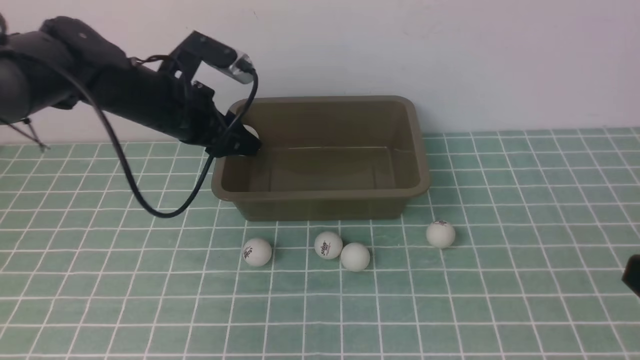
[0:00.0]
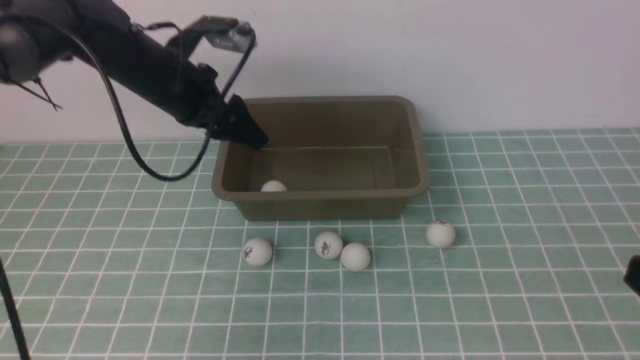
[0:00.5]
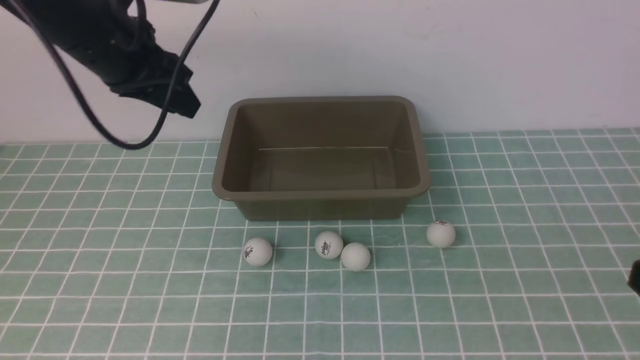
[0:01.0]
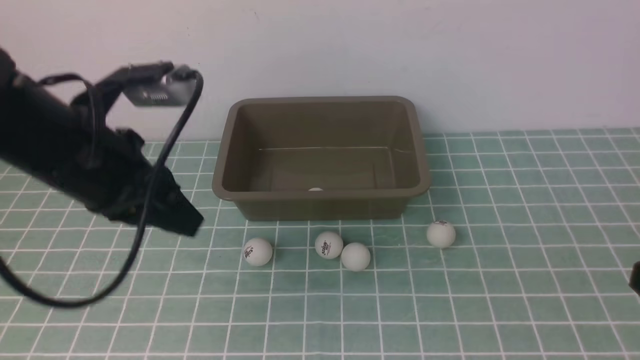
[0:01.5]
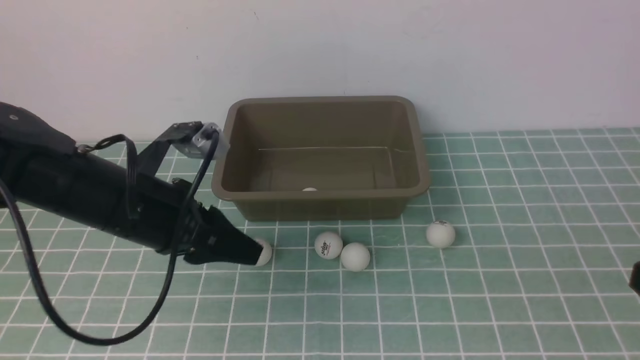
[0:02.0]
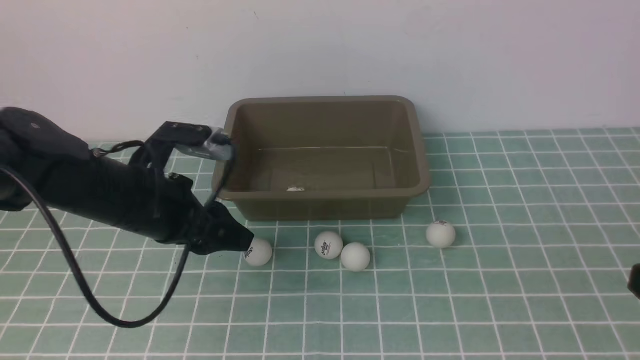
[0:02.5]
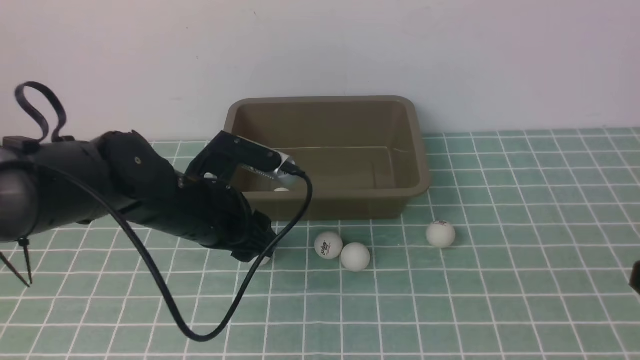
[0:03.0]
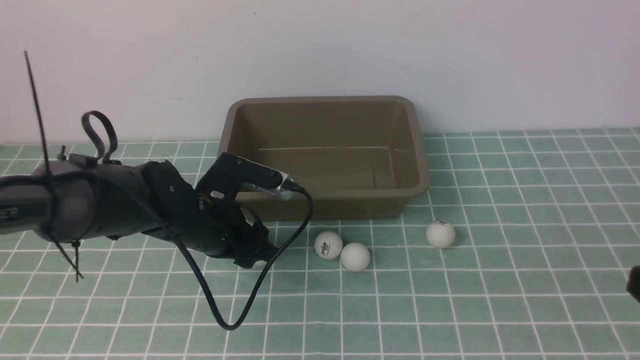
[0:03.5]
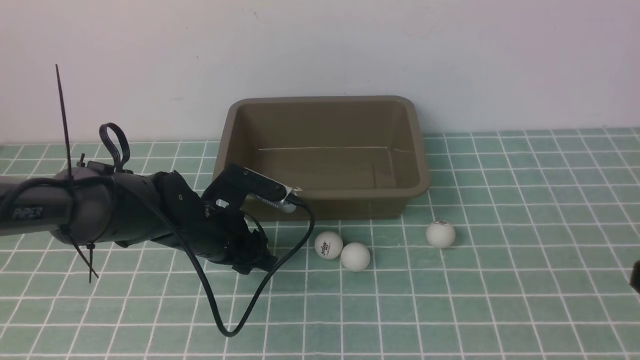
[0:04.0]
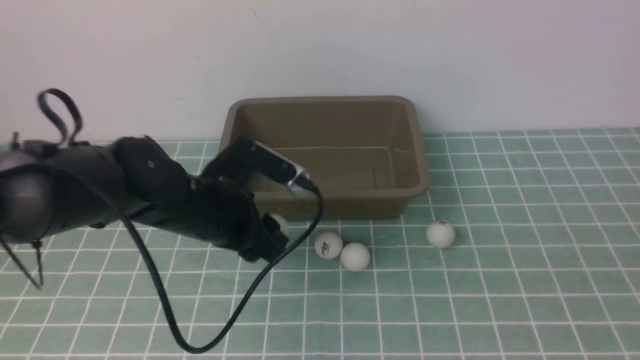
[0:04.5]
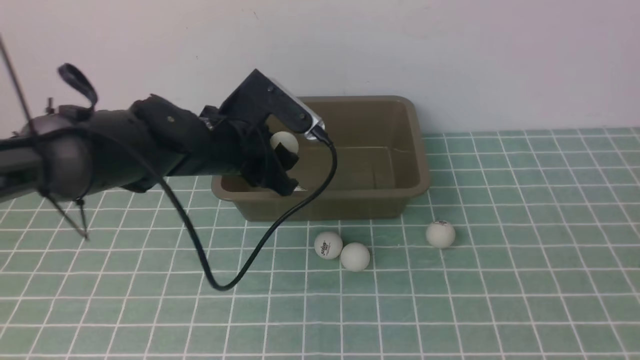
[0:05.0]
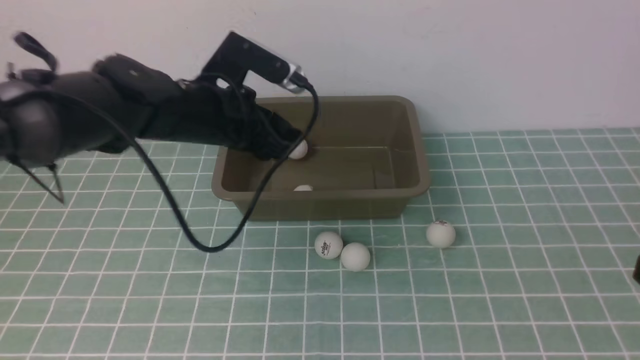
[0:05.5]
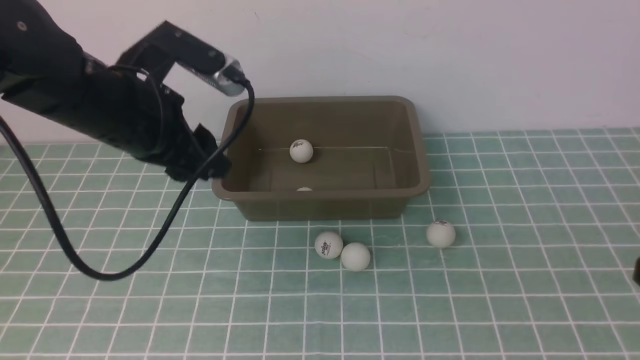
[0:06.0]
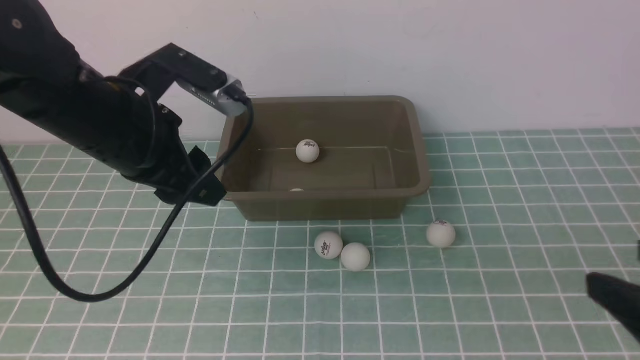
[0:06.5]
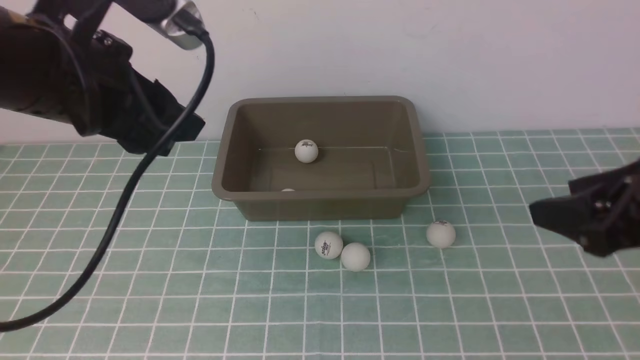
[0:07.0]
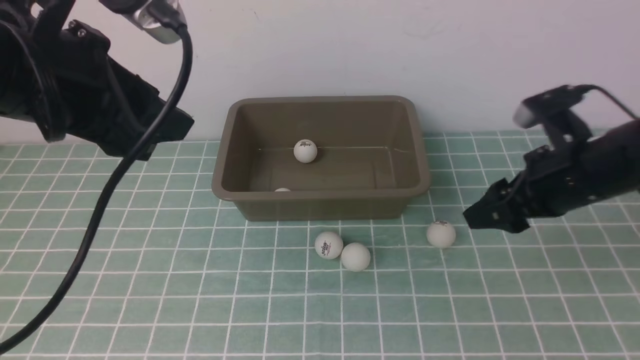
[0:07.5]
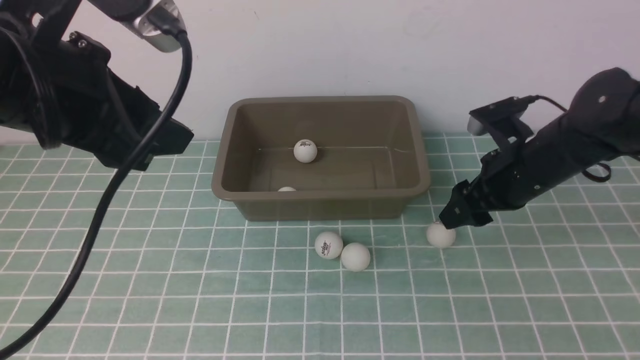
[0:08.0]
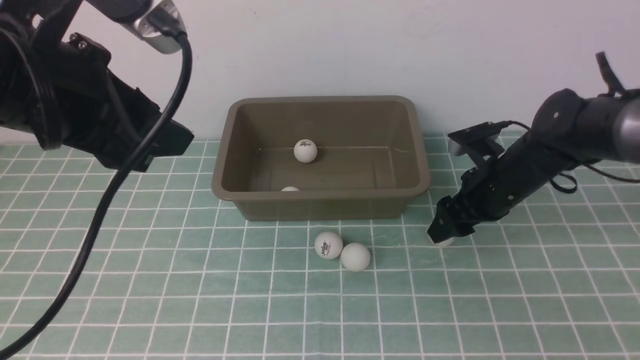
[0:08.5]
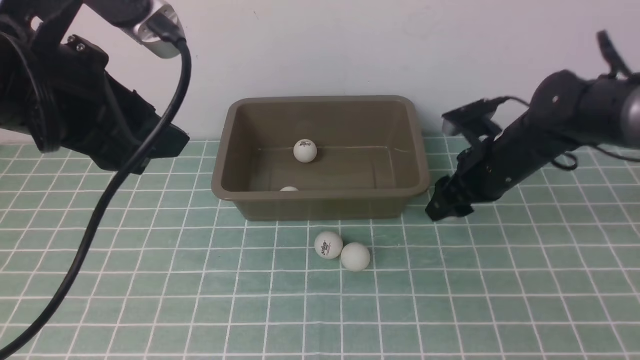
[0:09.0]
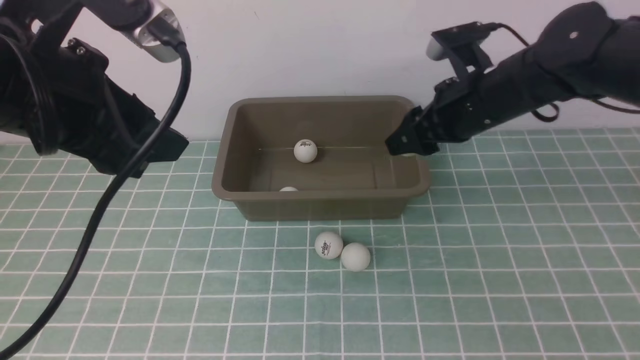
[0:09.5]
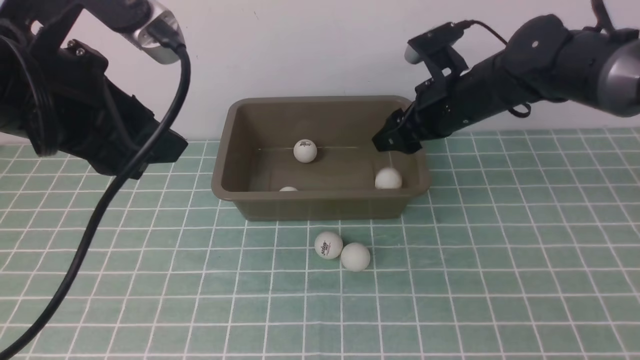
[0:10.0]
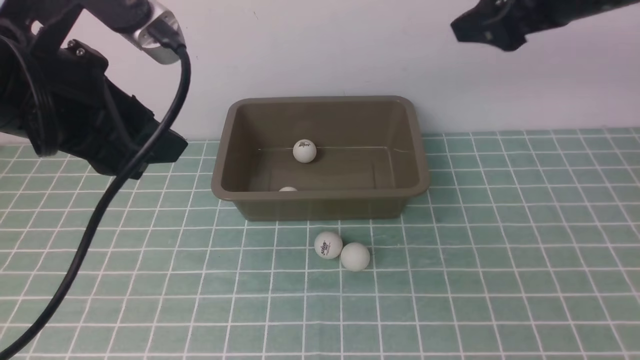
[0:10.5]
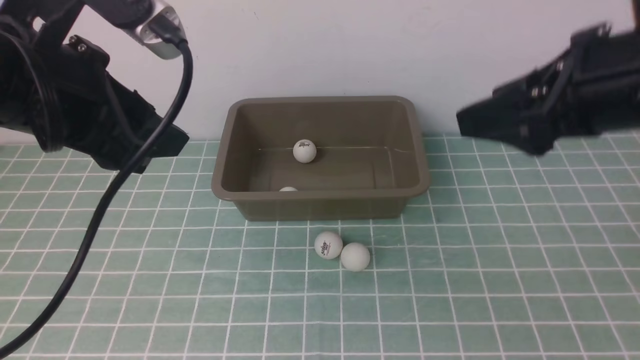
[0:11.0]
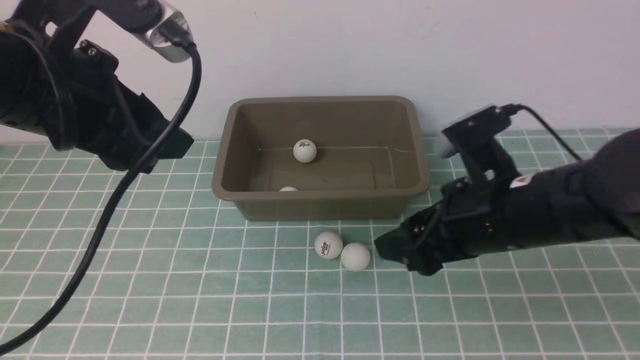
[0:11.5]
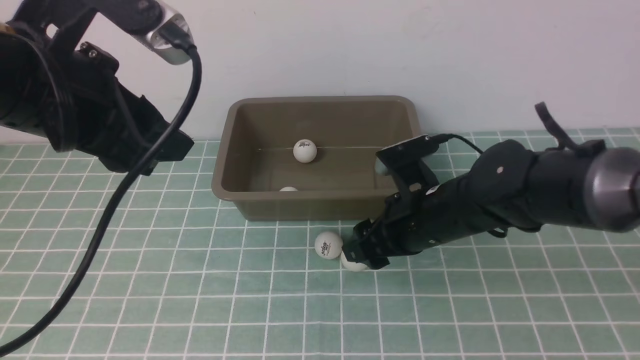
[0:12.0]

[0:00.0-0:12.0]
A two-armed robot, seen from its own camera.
Step, 0:00.0 to 0:00.5: use the left arm to put the table tennis ball into the box.
Step, 0:01.0 to 0:04.0: use the left arm to clamp the table tennis ball closest to it.
Step, 0:06.0 to 0:09.0: use the right arm to clamp the table tennis ball closest to it.
Step, 0:09.5 to 0:10.0: use the right arm to put the table tennis ball into the box.
0:00.0 to 0:02.0: The left gripper is displaced backward by about 15 cm, and closes, then opens again.
0:02.0 to 0:04.0: The left gripper goes roughly 10 cm downward.
0:04.0 to 0:06.0: The left gripper travels upward by some 15 cm.
0:06.0 to 0:08.0: The right gripper heads forward, covering roughly 30 cm, while the left gripper travels upward and backward by about 10 cm.
0:08.0 to 0:10.0: The right gripper moves upward, about 10 cm, and closes and opens again.
0:10.0 to 0:12.0: The right gripper travels downward, backward and to the left by about 20 cm.

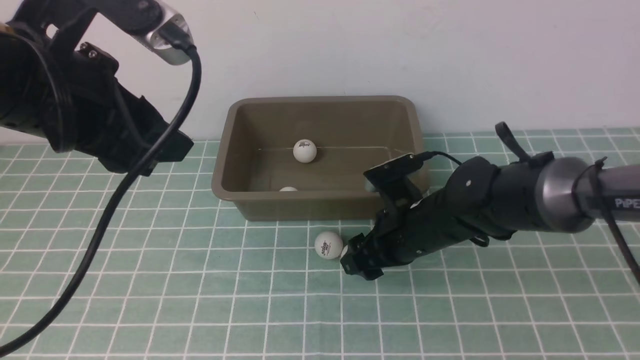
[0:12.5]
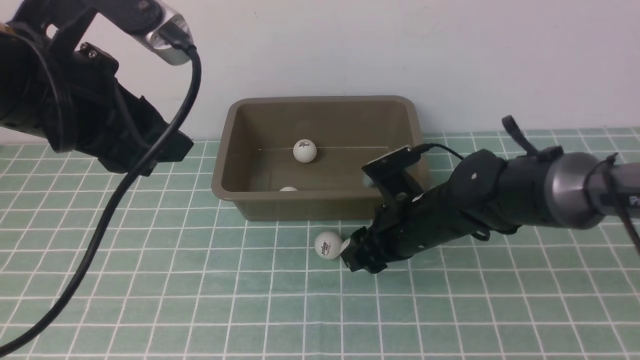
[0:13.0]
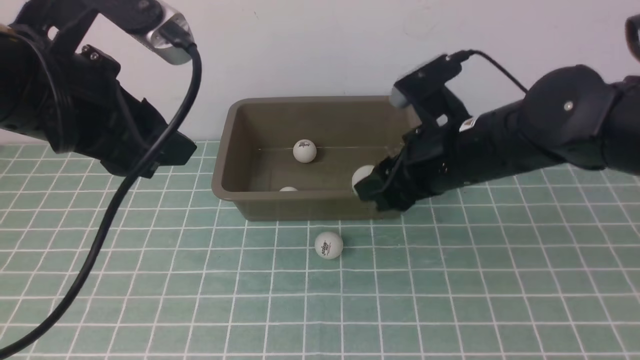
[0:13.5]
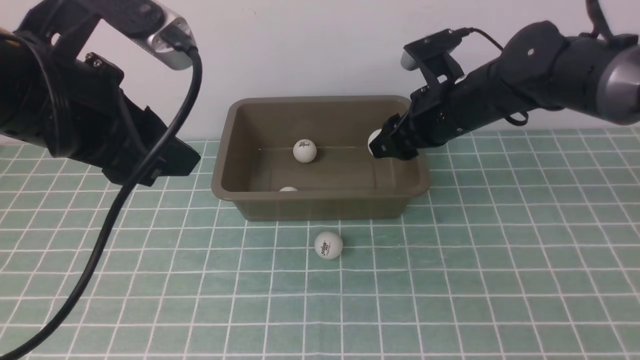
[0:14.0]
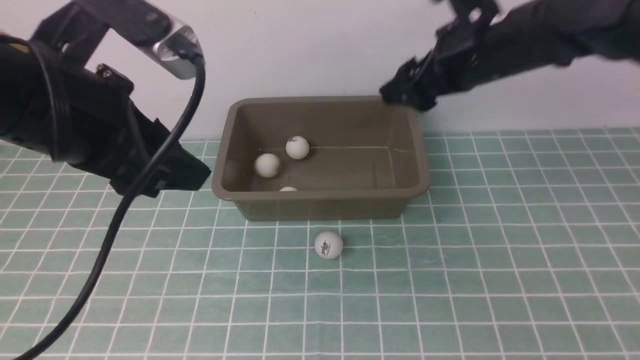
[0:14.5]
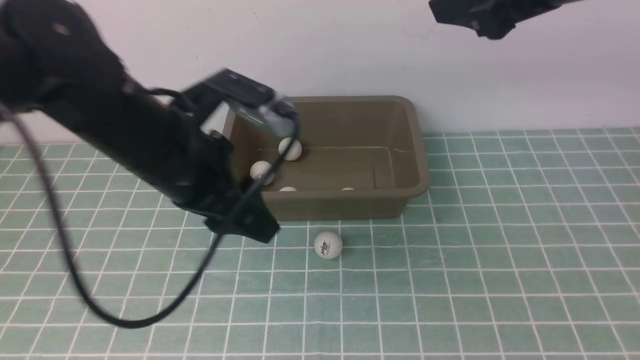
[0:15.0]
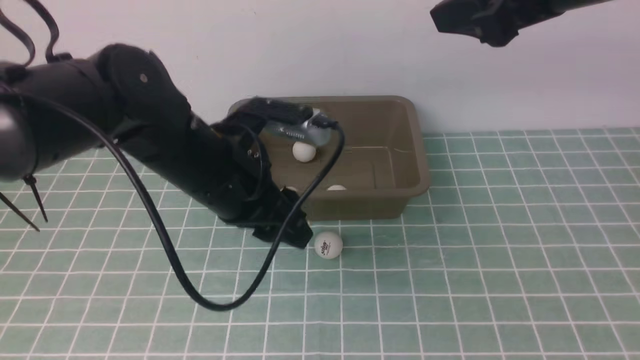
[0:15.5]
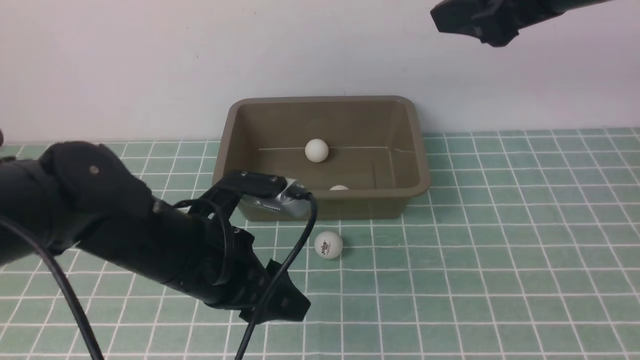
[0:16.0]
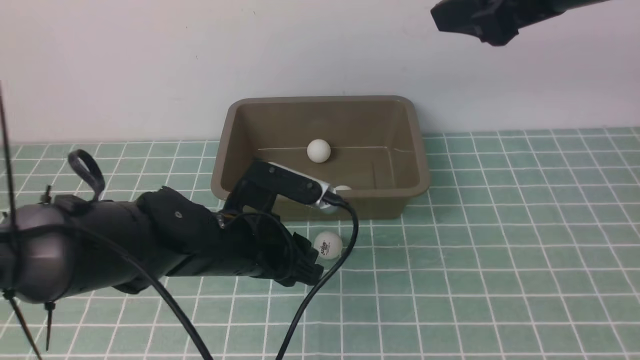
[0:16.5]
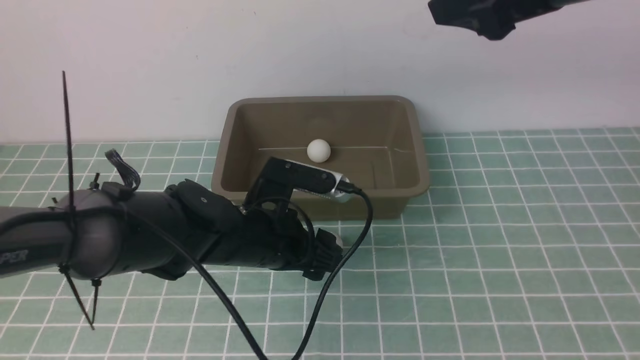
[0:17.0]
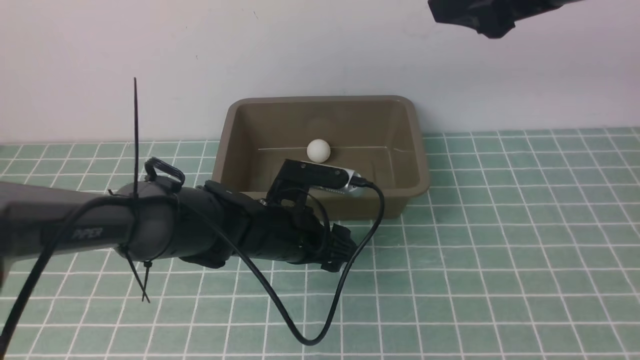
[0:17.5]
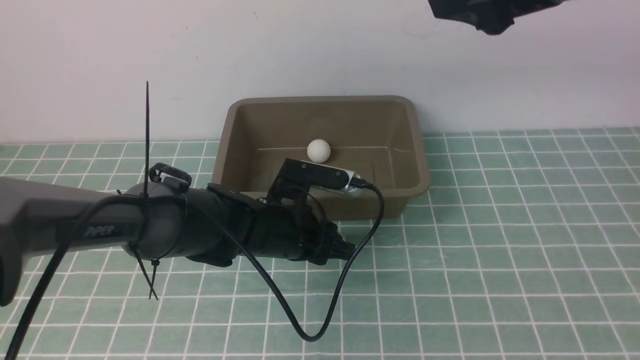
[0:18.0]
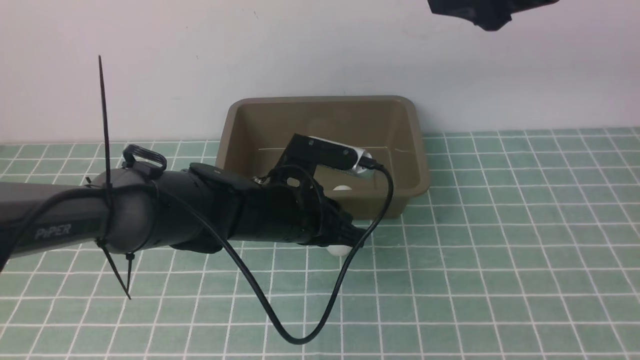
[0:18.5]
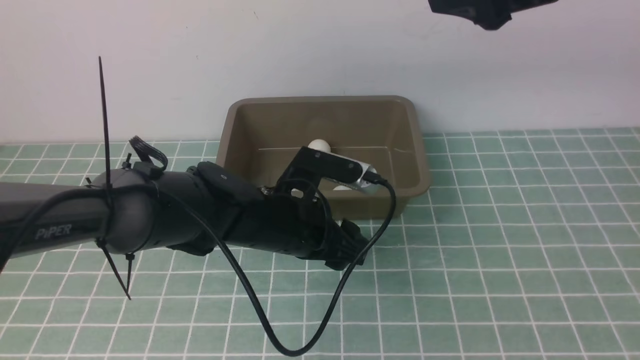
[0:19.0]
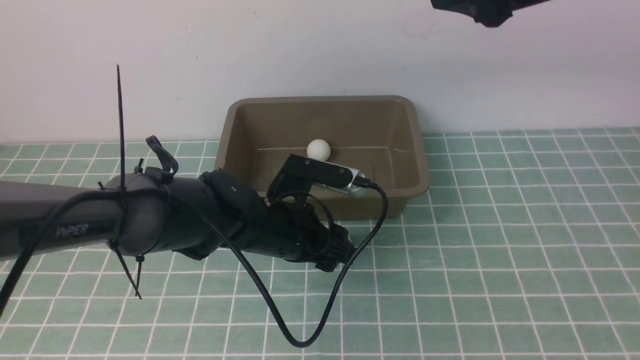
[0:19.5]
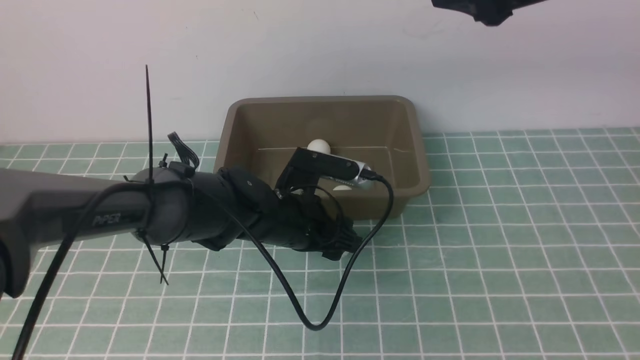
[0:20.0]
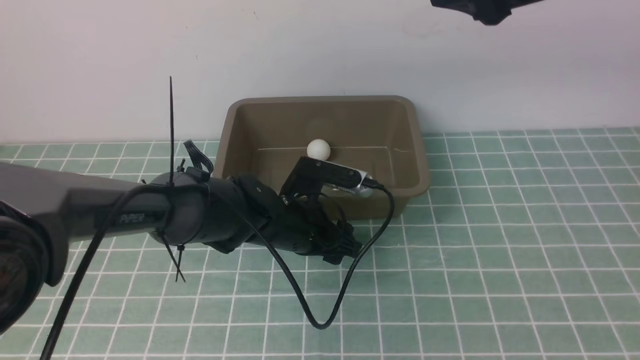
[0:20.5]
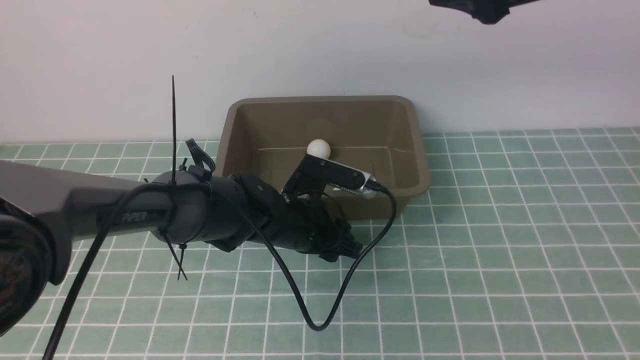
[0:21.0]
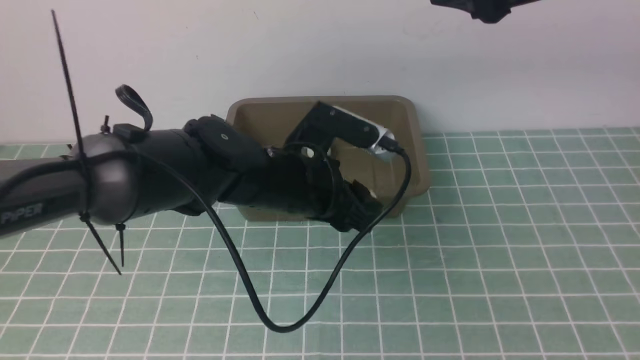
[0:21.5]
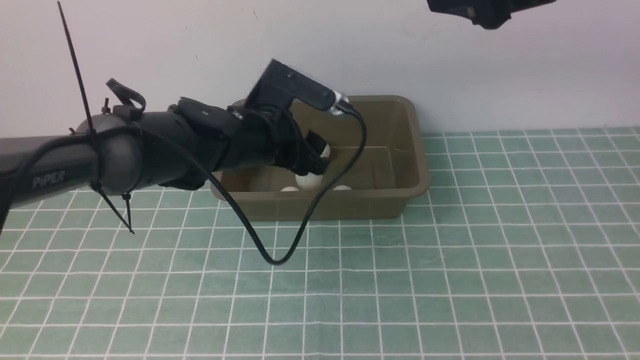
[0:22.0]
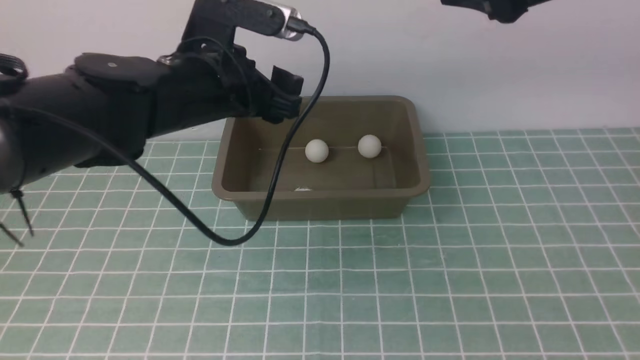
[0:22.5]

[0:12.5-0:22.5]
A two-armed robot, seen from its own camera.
Step, 0:13.5 to 0:14.0: use the right arm to put the table tennis ball into the box.
Step, 0:14.5 to 0:21.0: use the left arm to clamp the table tennis ball closest to it.
Step, 0:21.5 to 0:22.0: use the left arm to put the table tennis ball into the box.
0:12.5 to 0:14.5: The right gripper moves upward, approximately 20 cm, and opens its fingers.
0:14.5 to 0:16.5: The right gripper travels upward and backward by roughly 15 cm; the left gripper travels downward and to the right by roughly 20 cm.
0:16.5 to 0:18.5: The left gripper ends up approximately 5 cm from where it was, and closes its fingers.
0:18.5 to 0:20.5: The left gripper changes place by some 5 cm, and opens its fingers.
0:20.5 to 0:22.5: The left gripper shifts about 20 cm upward and to the left.
